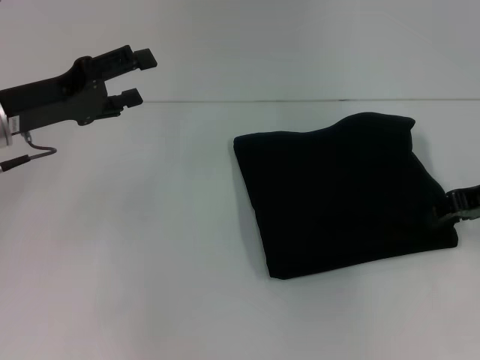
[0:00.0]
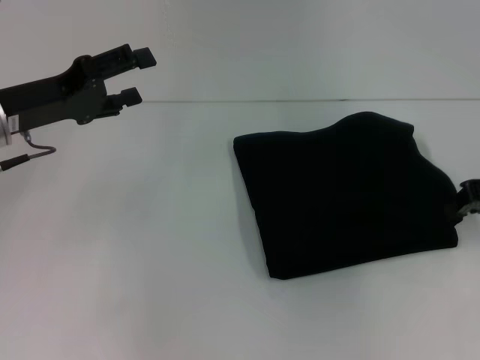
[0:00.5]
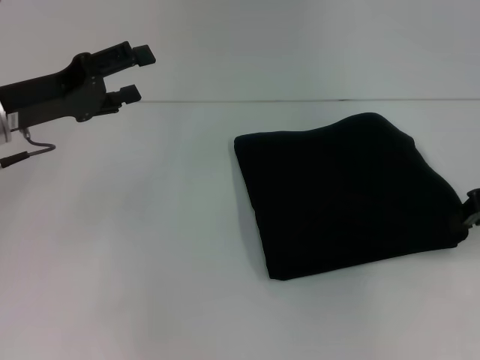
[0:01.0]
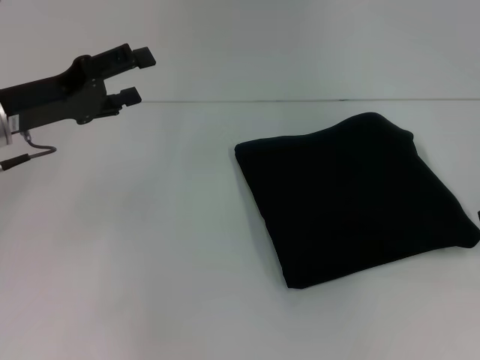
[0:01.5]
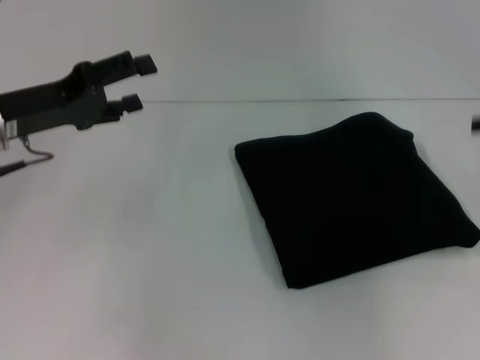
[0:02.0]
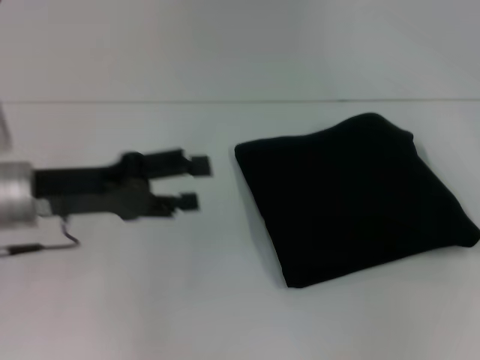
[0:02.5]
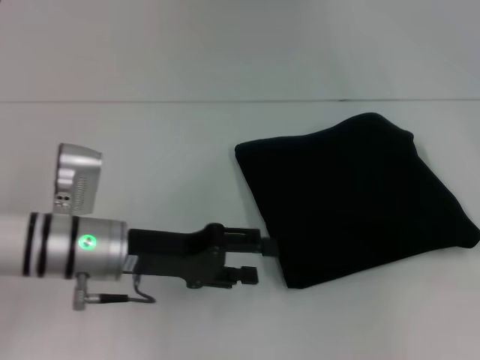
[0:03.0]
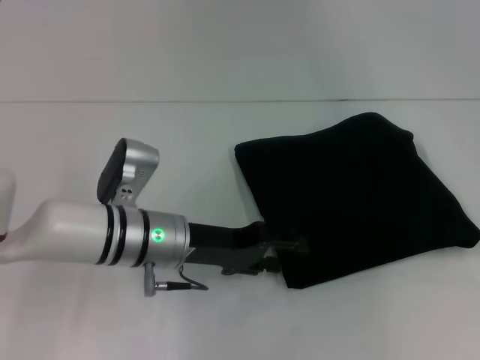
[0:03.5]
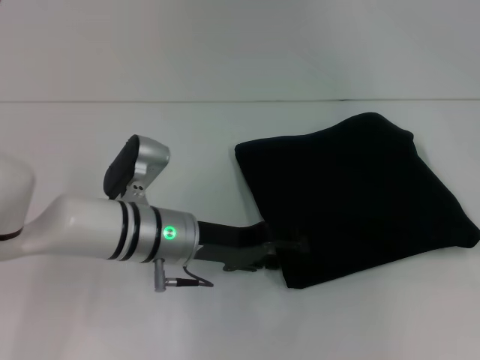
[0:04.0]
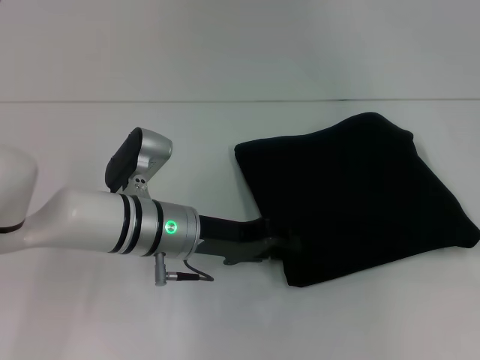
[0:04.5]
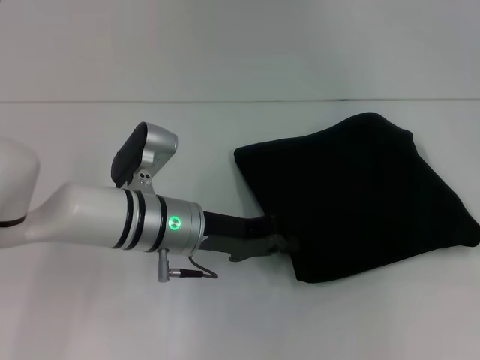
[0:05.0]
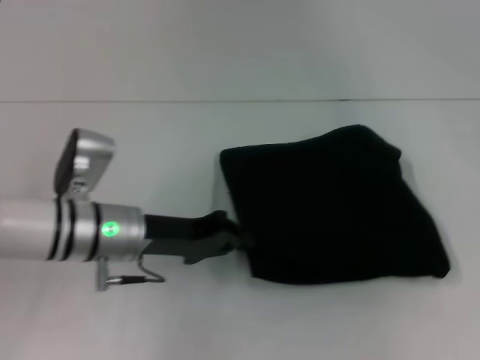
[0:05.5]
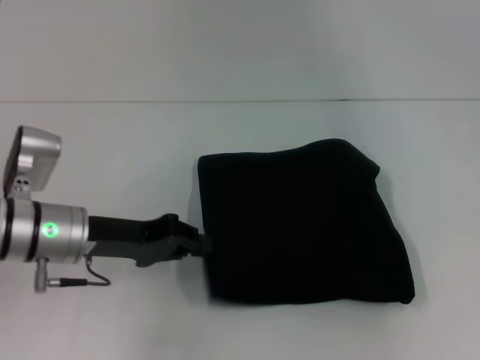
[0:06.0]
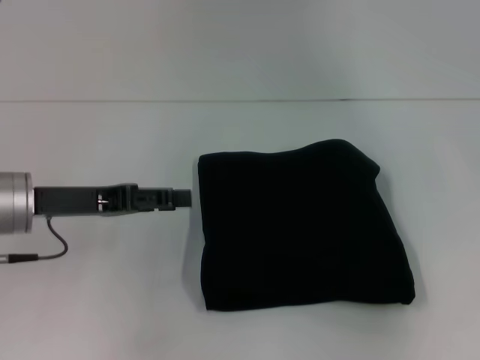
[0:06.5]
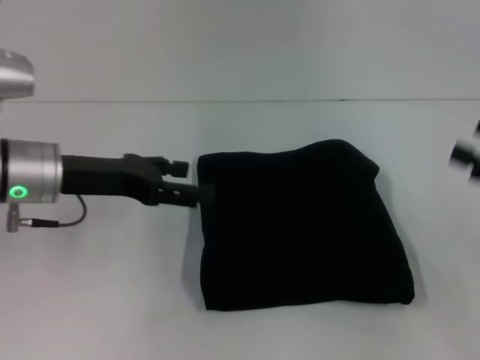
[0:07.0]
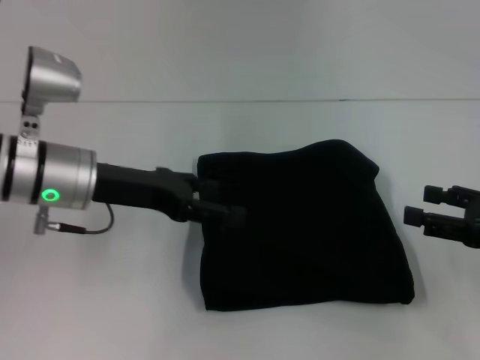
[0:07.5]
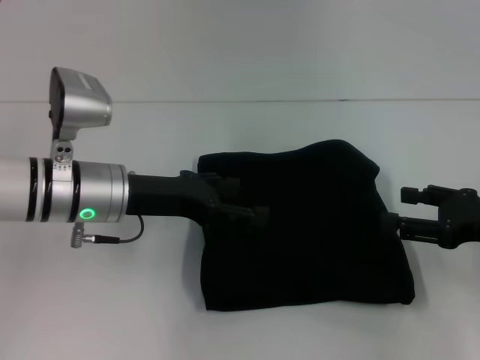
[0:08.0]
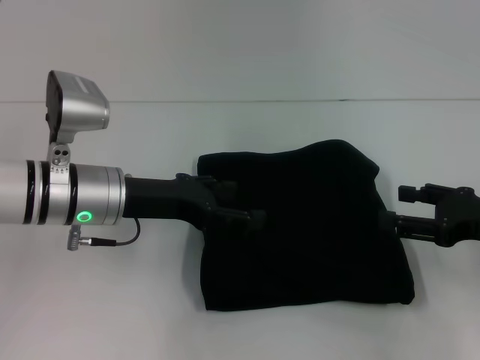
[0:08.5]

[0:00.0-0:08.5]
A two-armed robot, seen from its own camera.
0:00.0 to 0:02.0: The right gripper goes some 10 cm to the right and upward, and closes, then opens again.
0:02.0 to 0:04.0: The left gripper travels to the right and downward by about 20 cm; the right gripper travels upward by approximately 5 cm, and opens its fingers.
0:04.0 to 0:06.5: The left gripper travels to the left and upward by approximately 15 cm, and closes, then opens again.
0:06.5 to 0:08.5: The right gripper travels downward, backward and to the left by approximately 20 cm; the left gripper heads to the right, covering roughly 5 cm, and opens its fingers.

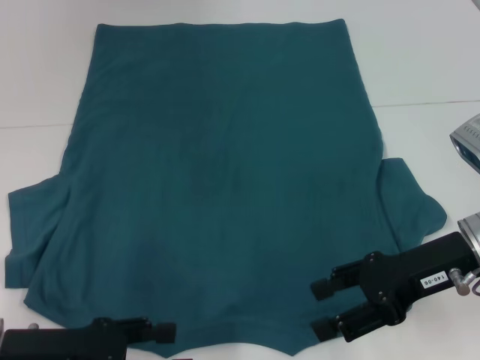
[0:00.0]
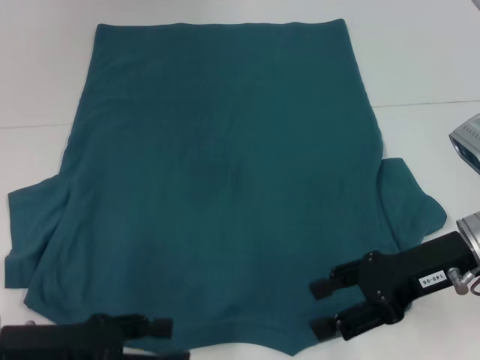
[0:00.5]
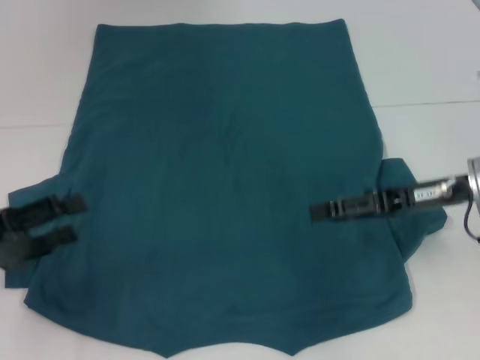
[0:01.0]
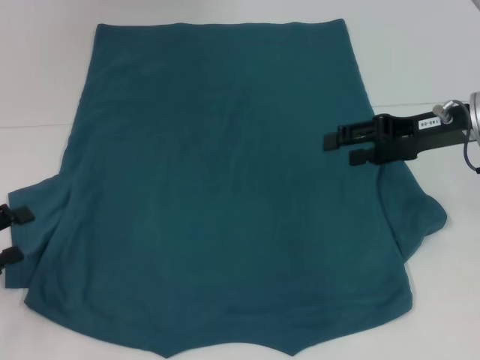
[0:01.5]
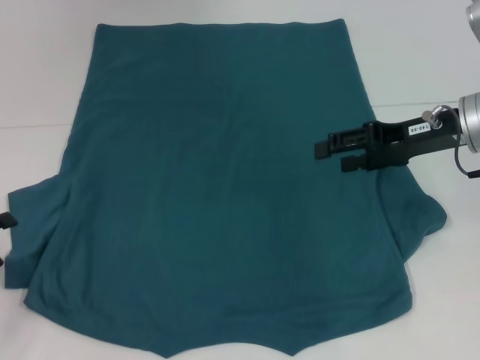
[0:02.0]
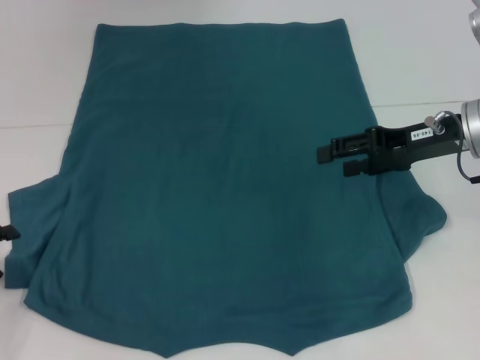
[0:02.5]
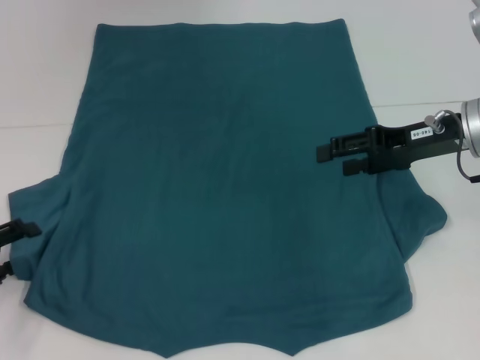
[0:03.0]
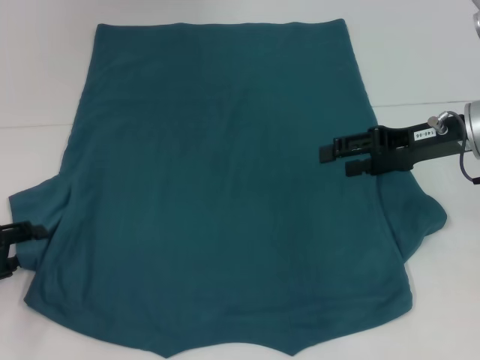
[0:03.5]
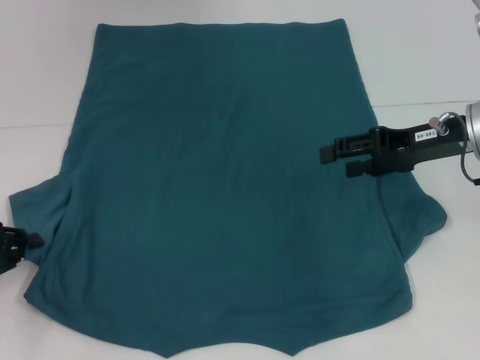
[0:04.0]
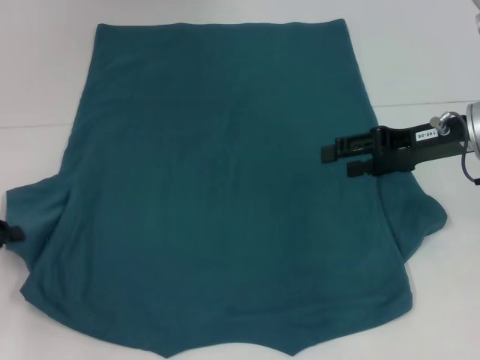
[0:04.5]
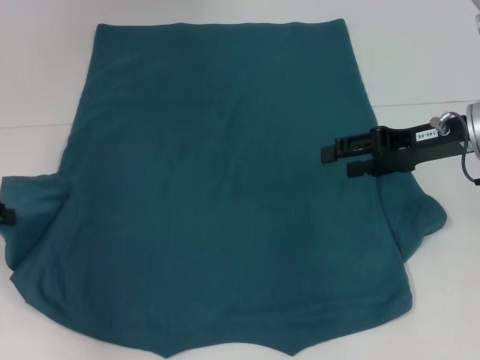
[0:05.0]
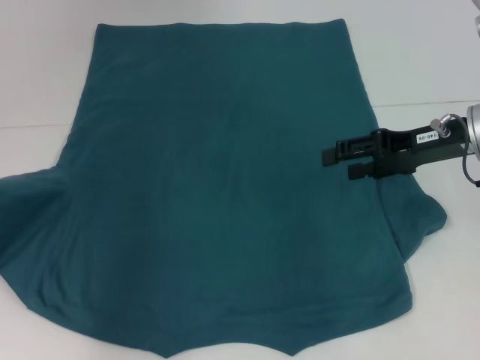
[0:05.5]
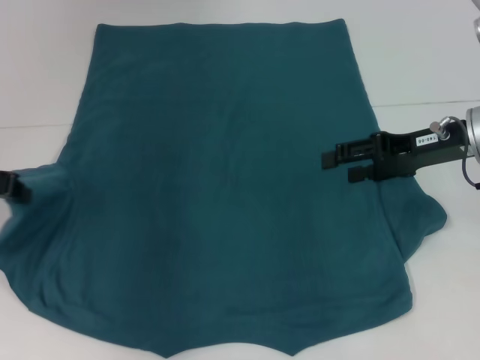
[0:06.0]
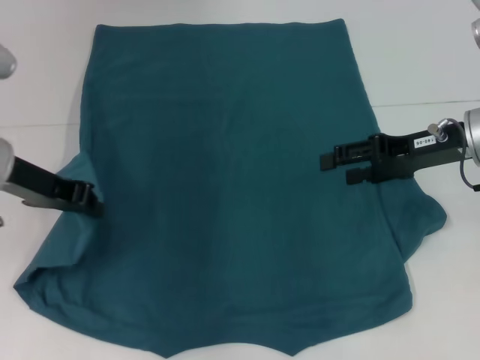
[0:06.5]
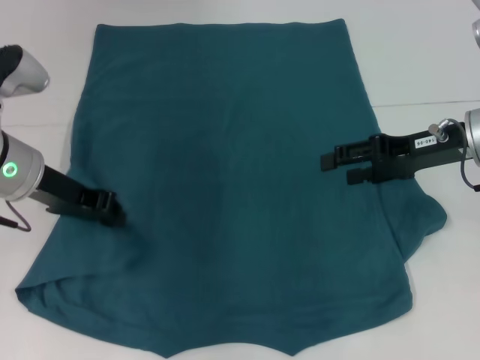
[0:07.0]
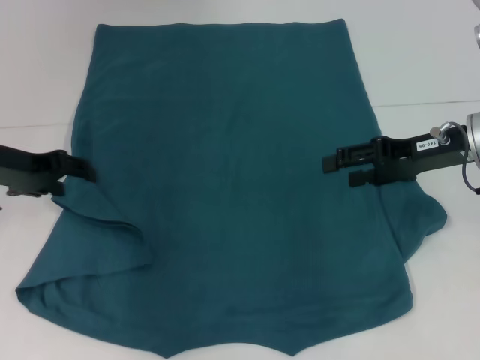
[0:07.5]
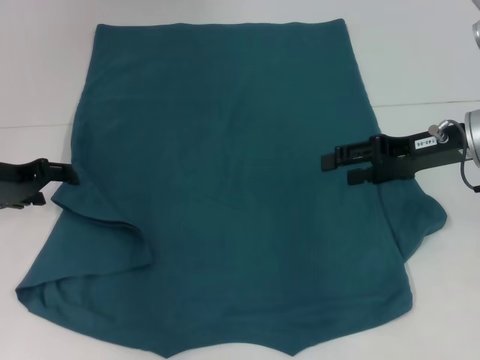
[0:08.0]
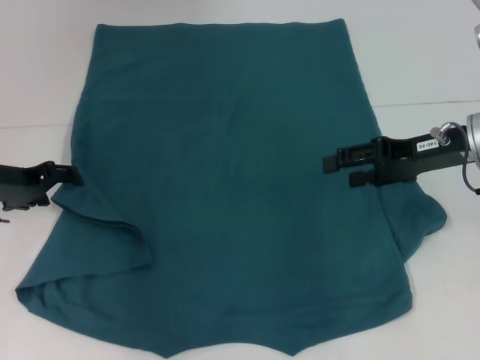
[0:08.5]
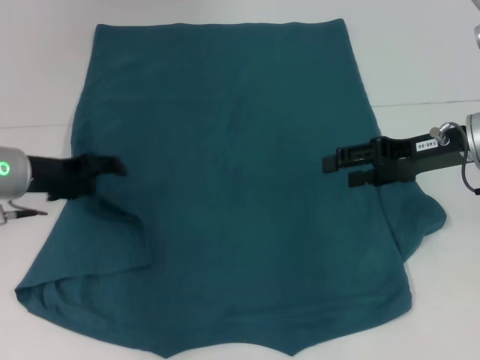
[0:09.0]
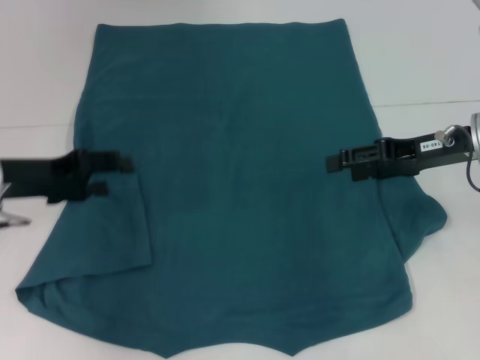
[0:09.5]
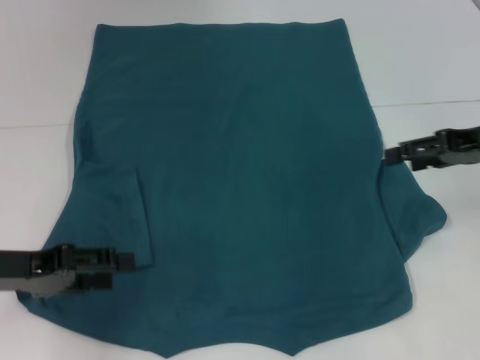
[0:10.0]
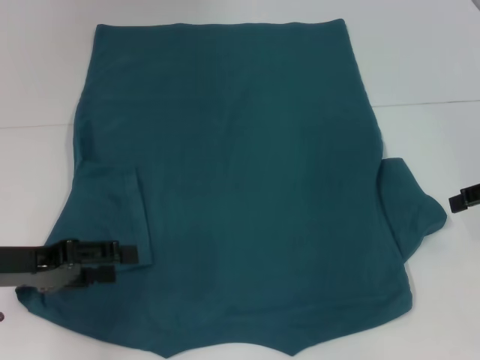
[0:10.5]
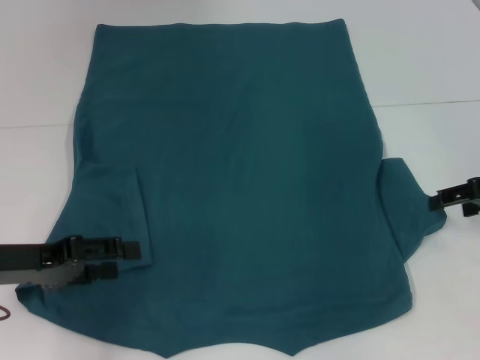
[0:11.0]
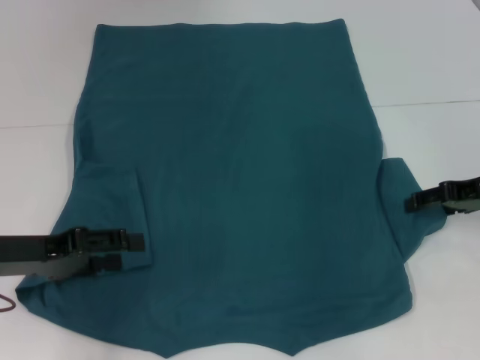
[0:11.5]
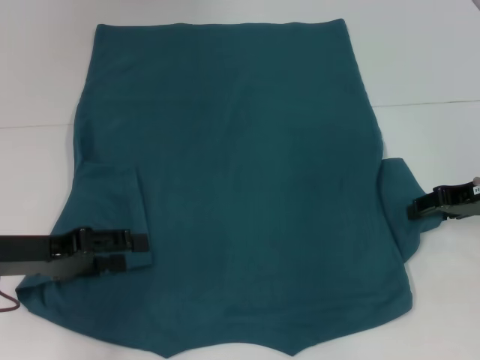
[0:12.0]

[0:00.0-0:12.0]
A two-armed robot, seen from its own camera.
Step, 0:00.0 to 0:09.0: Fold the bottom left sleeve with your left hand.
0:00.0 to 0:02.0: The left gripper travels to the left by roughly 15 cm. The right gripper travels forward by about 10 cm.
0:02.0 to 0:04.0: The left gripper closes up.
0:04.0 to 0:06.0: The left gripper goes some 15 cm upward and forward, and closes its fingers.
0:06.0 to 0:08.0: The left gripper goes roughly 5 cm downward, moves approximately 10 cm to the right and comes back, and opens.
0:08.0 to 0:10.0: The left gripper shifts approximately 10 cm backward. The right gripper travels to the right by approximately 5 cm.
0:10.0 to 0:12.0: The right gripper goes approximately 5 cm downward.

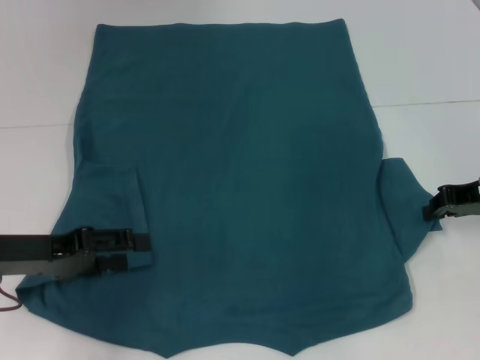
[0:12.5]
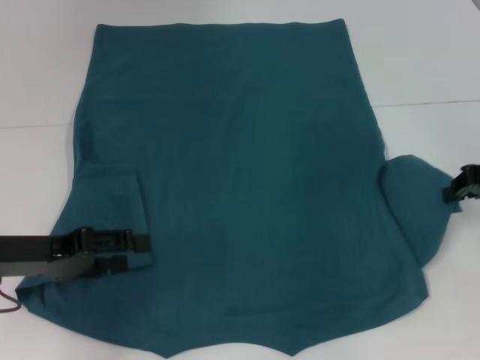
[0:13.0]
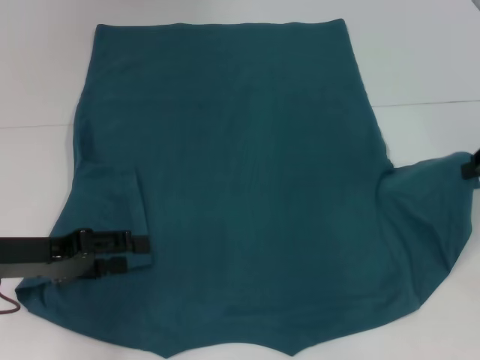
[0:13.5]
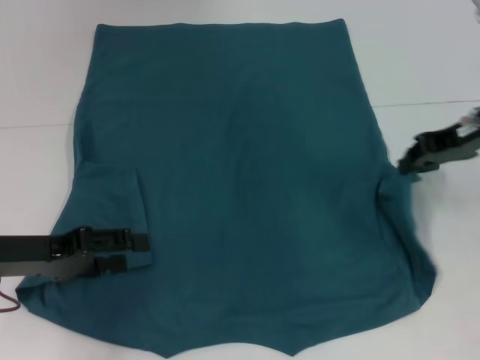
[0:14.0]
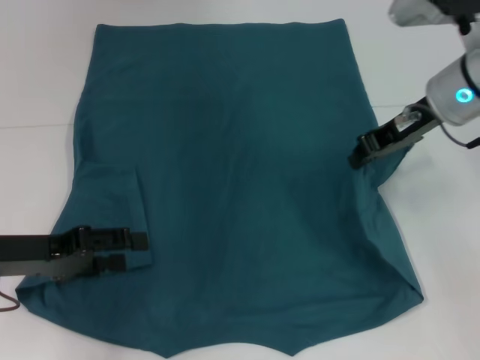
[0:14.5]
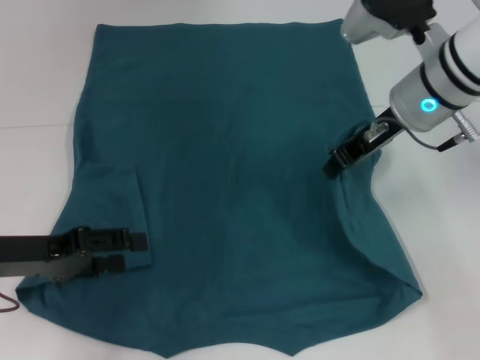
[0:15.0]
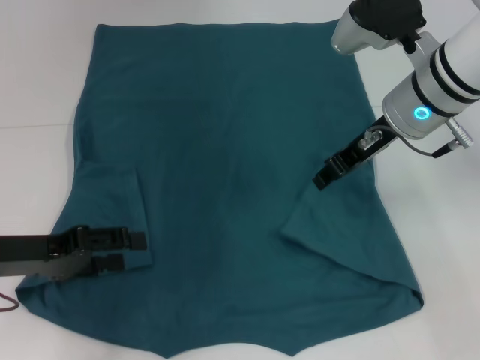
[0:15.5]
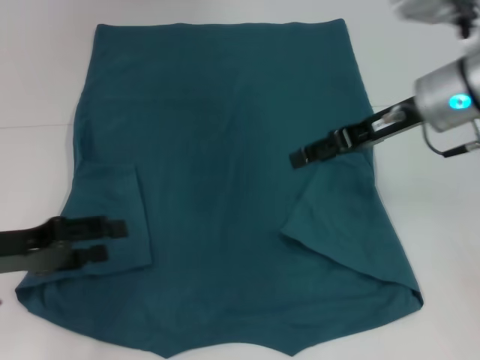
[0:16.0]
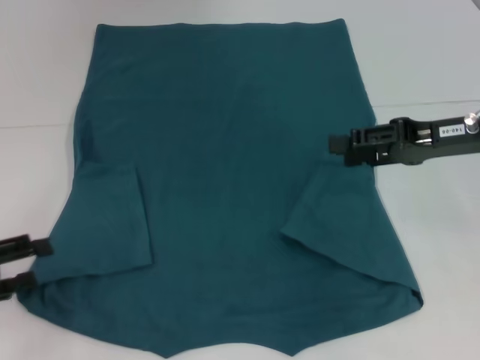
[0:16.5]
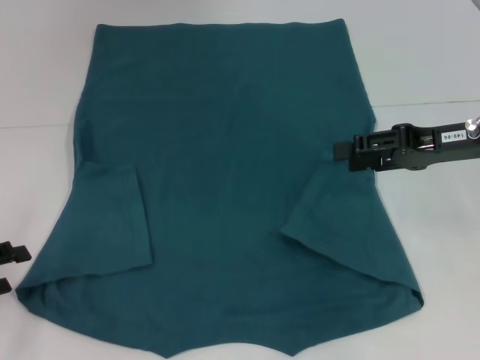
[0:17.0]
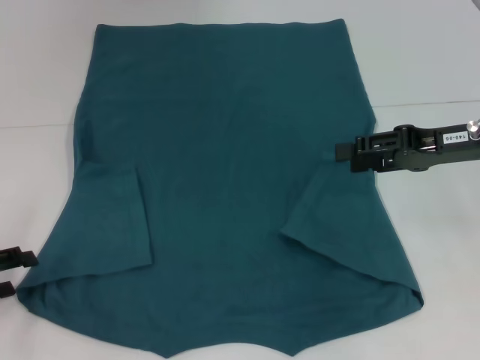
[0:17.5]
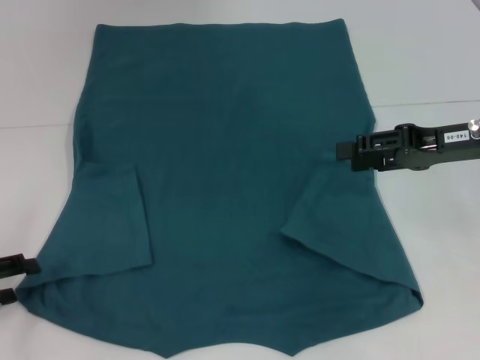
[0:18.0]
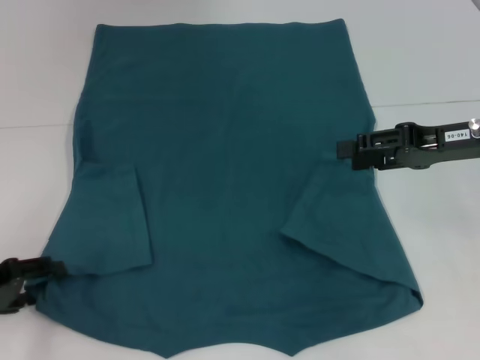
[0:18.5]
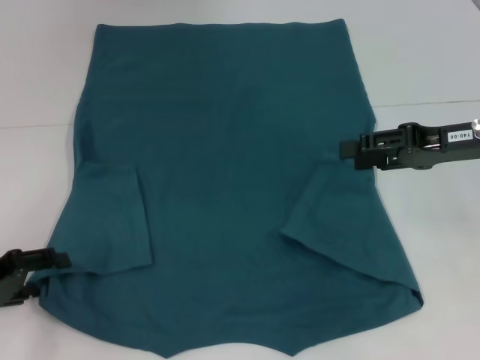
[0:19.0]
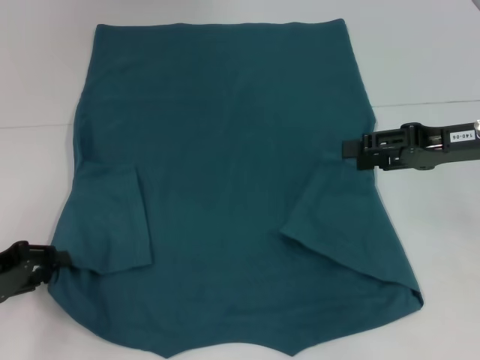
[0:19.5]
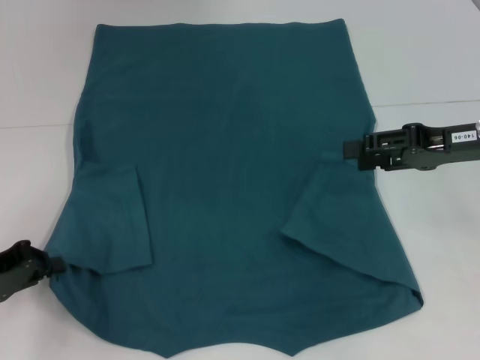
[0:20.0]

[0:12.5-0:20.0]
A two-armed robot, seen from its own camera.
Step, 0:12.5 to 0:15.5: Fold the bottom right sleeve to the right.
0:12.5 to 0:14.5: The right gripper moves to the left and upward, approximately 15 cm.
0:14.5 to 0:16.5: The left gripper goes approximately 10 cm to the left. The right gripper travels to the right and backward by about 10 cm, and opens up.
0:16.5 to 0:18.0: The grippers stay close to where they were, moving slightly.
0:18.0 to 0:20.0: The left gripper closes up.
